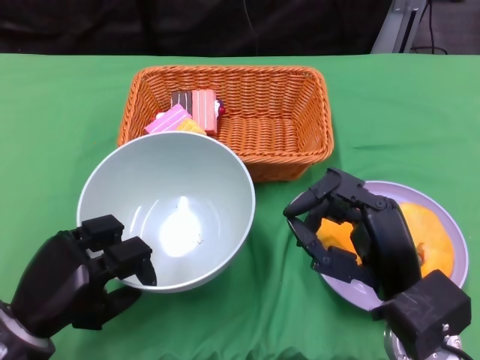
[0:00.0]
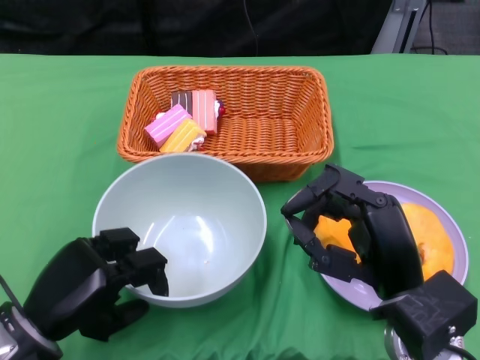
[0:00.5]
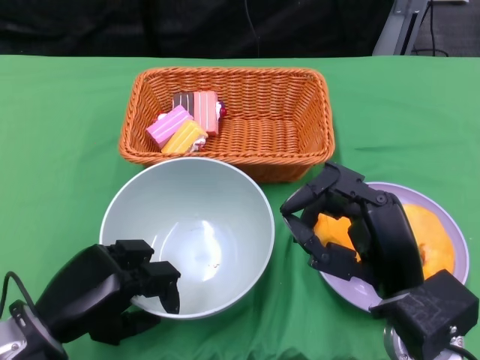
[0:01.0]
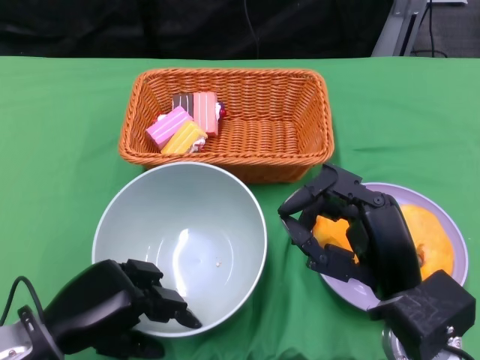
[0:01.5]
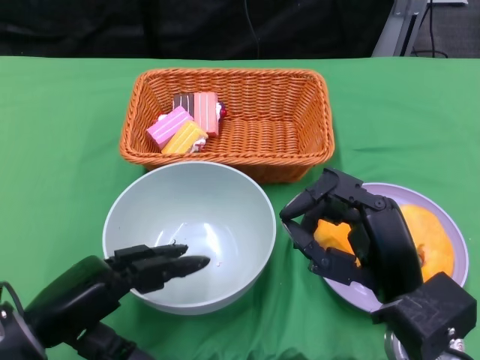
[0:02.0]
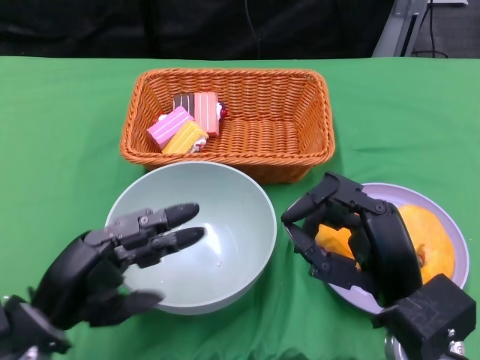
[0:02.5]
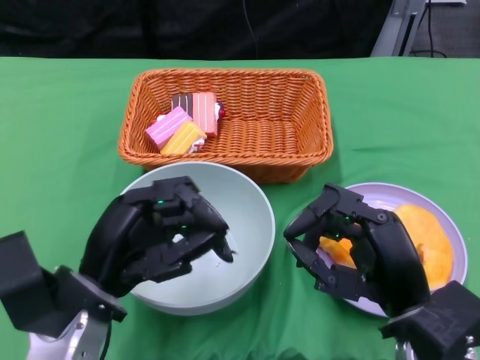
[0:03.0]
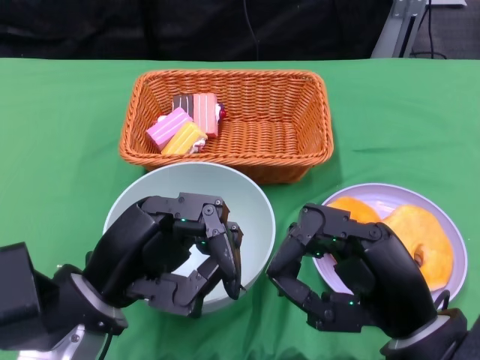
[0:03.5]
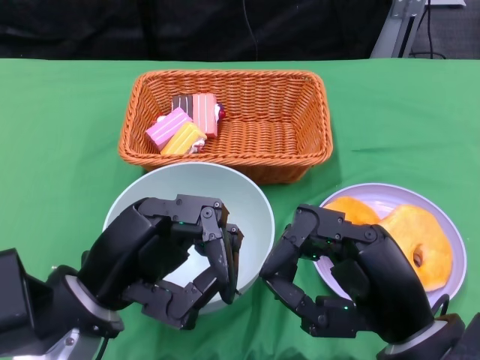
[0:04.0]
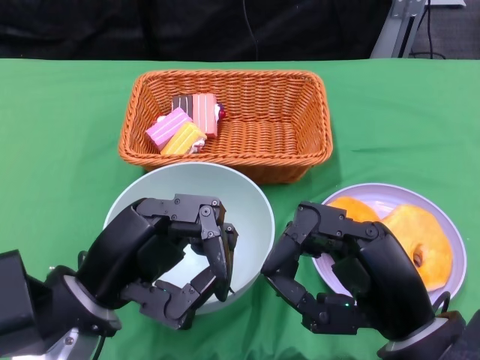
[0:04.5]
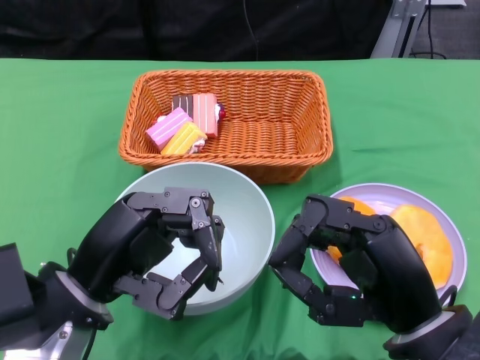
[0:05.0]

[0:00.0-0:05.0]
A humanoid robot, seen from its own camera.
0:02.5 to 0:05.0: The left hand is displaced upward by about 5 cm.

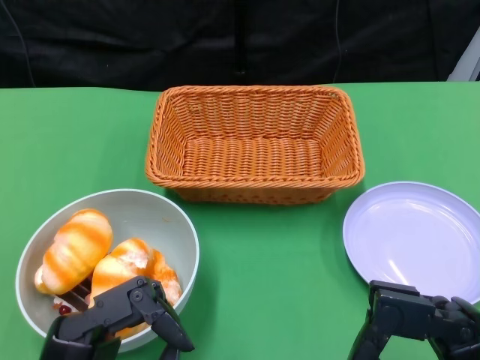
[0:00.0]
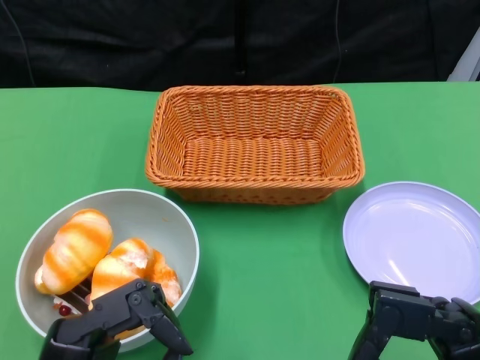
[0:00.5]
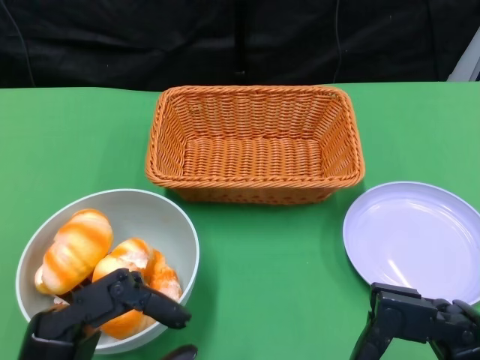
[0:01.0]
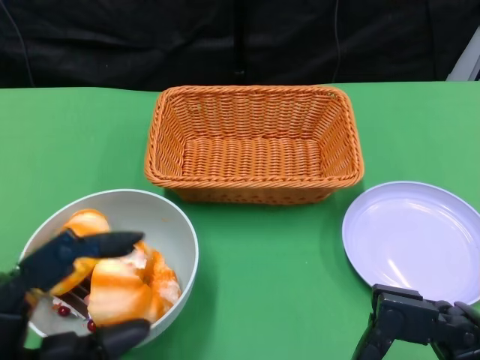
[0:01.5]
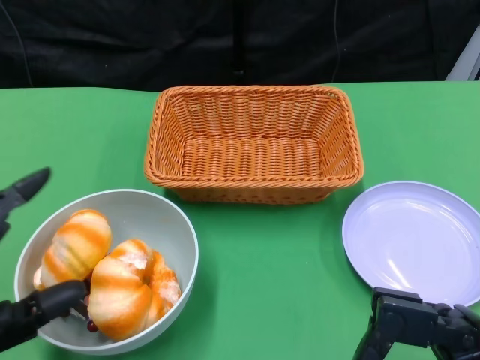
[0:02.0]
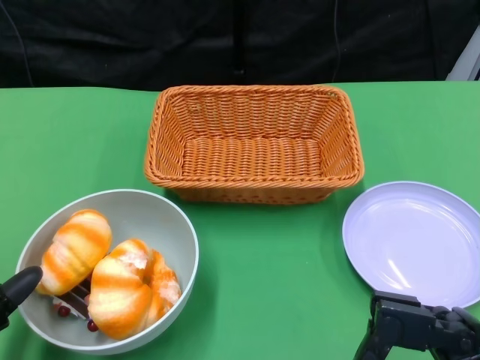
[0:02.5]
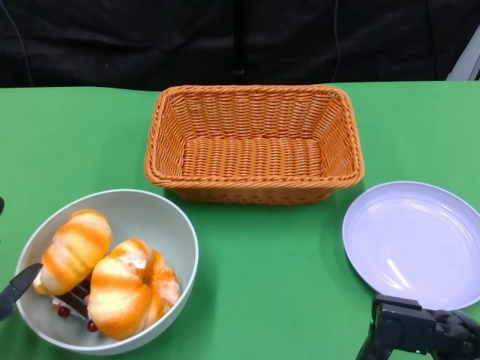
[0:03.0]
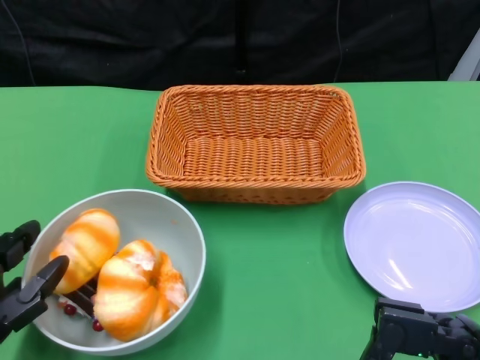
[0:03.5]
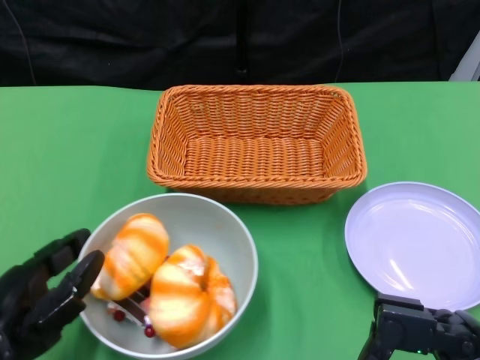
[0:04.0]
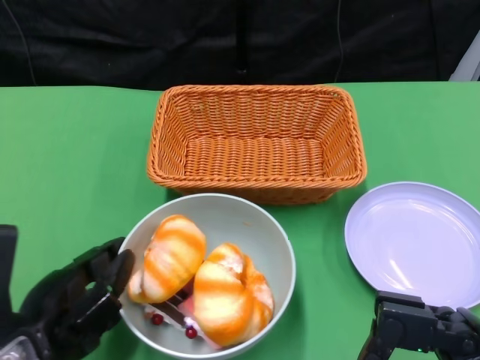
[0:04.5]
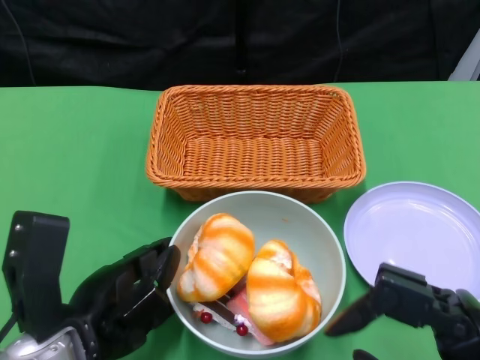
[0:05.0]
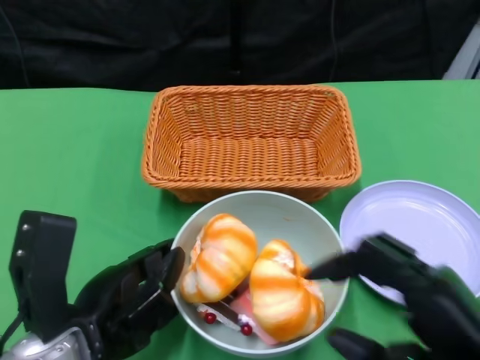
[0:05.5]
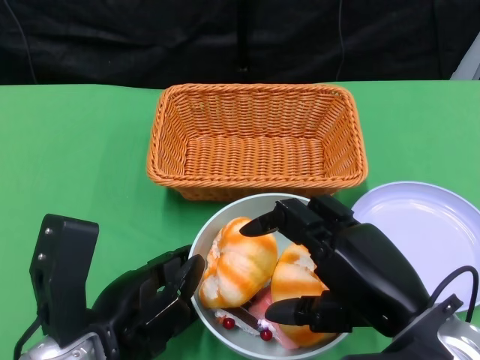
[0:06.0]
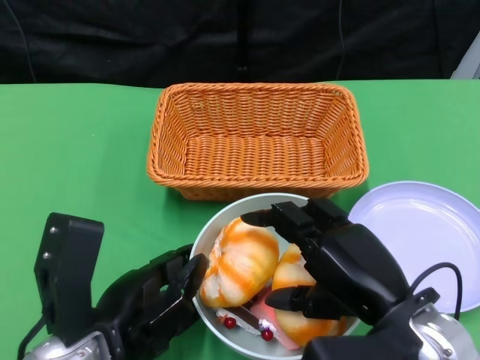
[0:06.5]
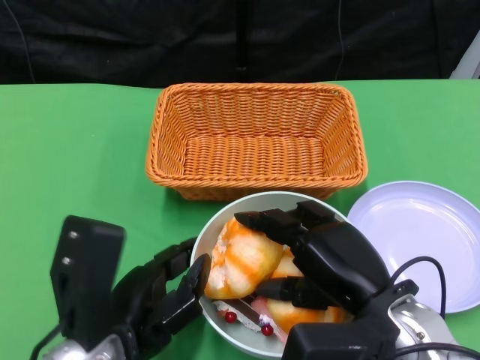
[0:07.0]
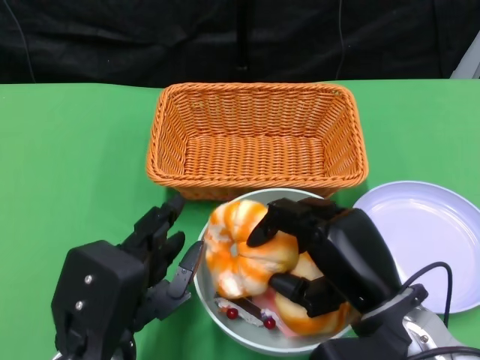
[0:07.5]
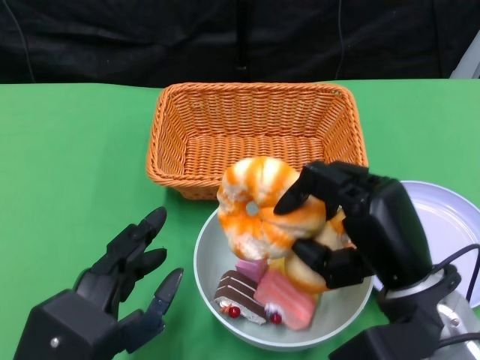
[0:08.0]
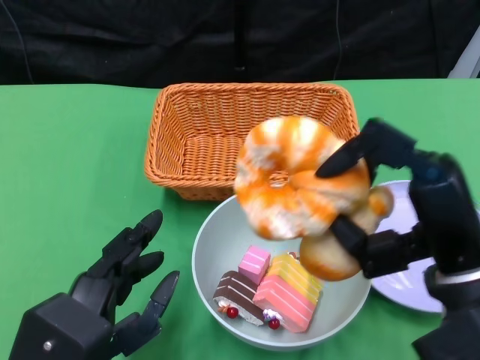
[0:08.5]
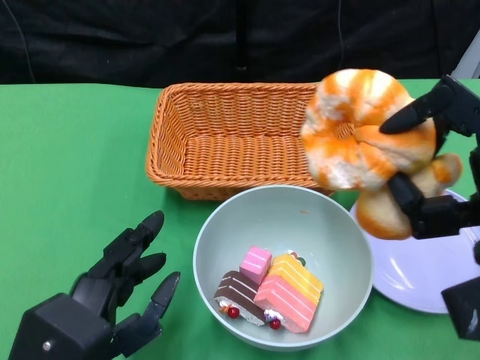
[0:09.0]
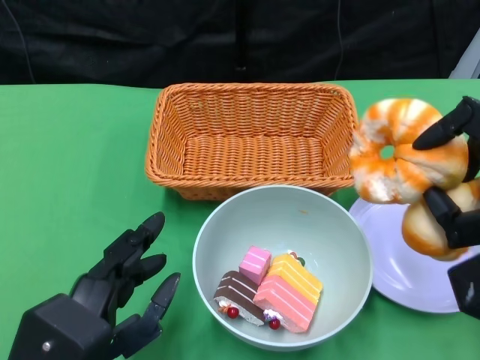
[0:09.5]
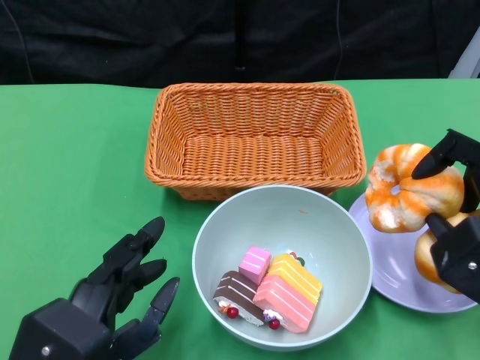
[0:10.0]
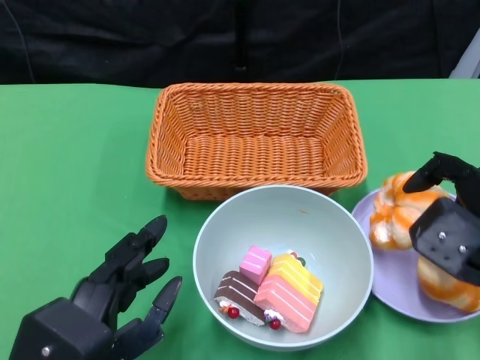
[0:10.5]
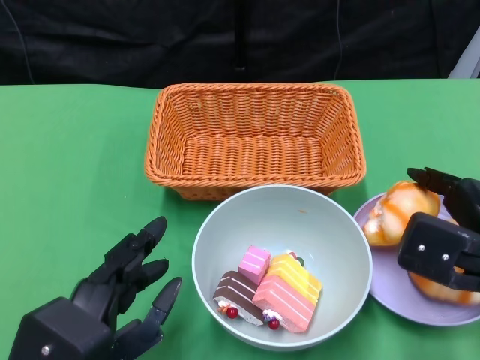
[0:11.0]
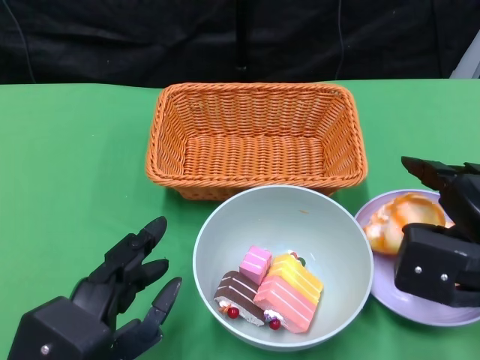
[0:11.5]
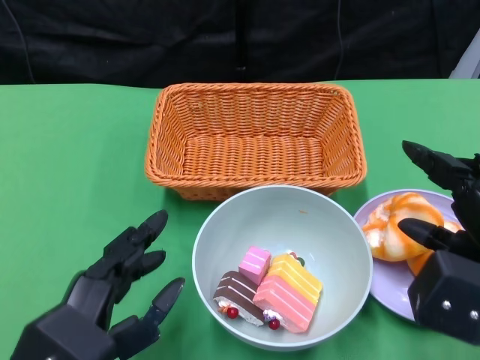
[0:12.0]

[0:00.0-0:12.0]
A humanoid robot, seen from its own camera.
Step, 0:00.0 to 0:05.0: Push the bowl to the center of the table using the left gripper.
Step, 0:06.0 to 0:11.5: Pick up the bread with the right gripper and place it on the plate.
0:02.0 to 0:04.0: The left hand travels forward by about 5 cm.
0:04.0 to 0:06.0: The right hand moves forward, roughly 5 cm; the left hand heads to the right, covering roughly 10 cm.
0:06.0 to 0:08.0: The right hand shifts by approximately 5 cm.
0:08.0 to 0:10.0: The right hand travels to the right by approximately 10 cm.

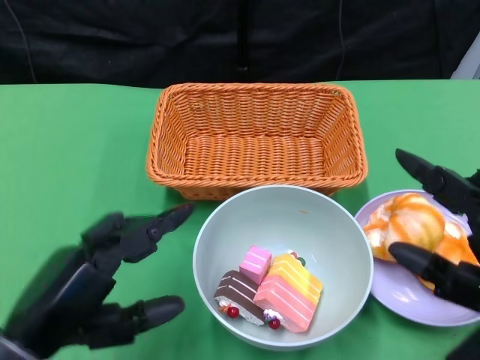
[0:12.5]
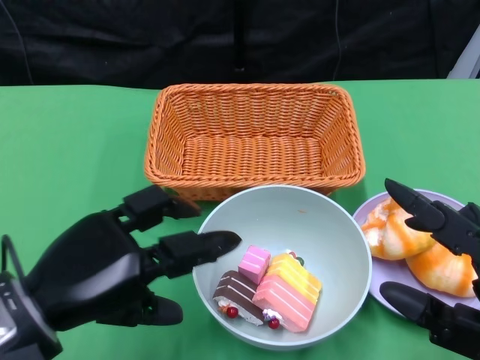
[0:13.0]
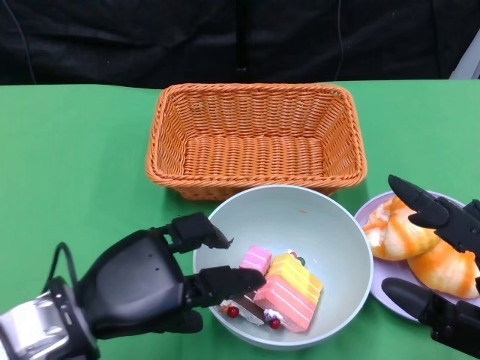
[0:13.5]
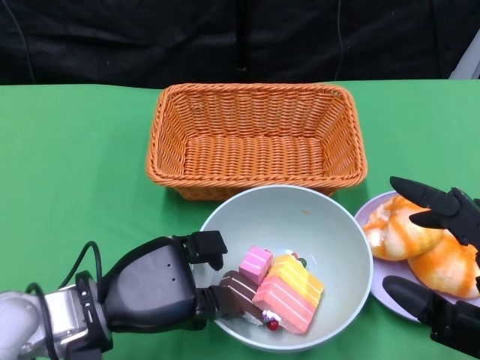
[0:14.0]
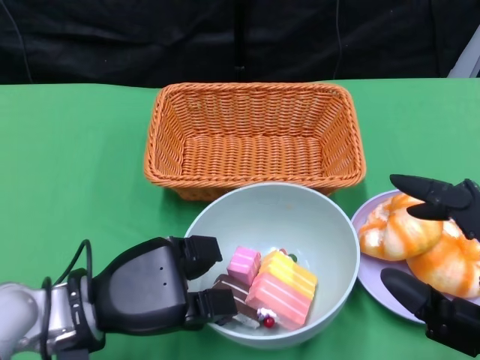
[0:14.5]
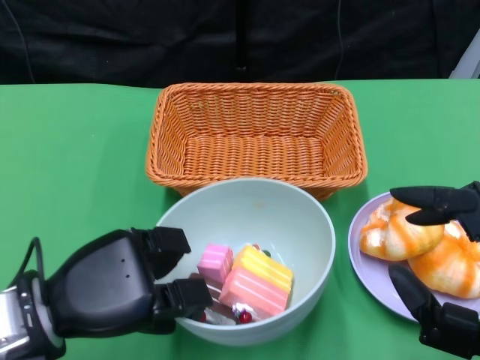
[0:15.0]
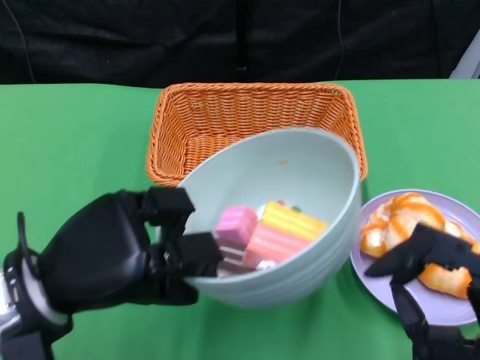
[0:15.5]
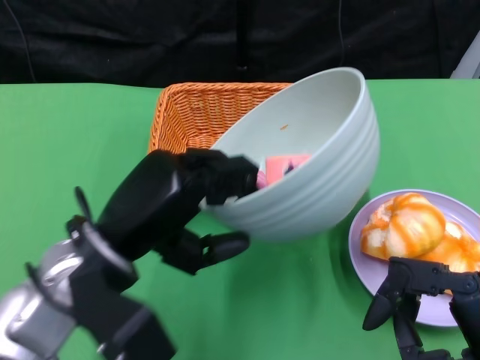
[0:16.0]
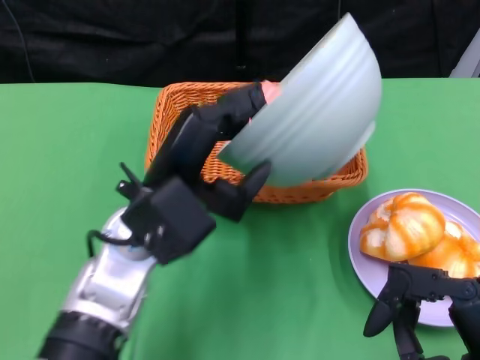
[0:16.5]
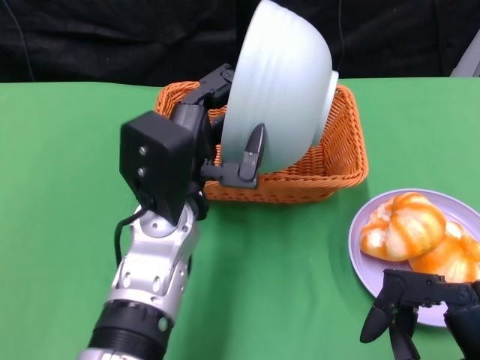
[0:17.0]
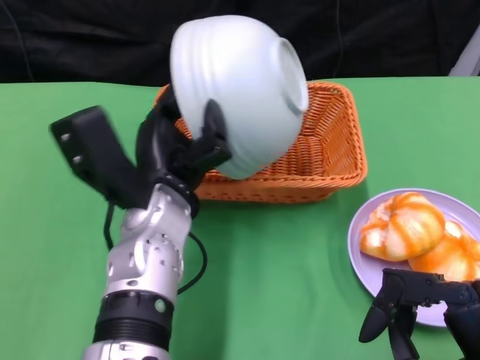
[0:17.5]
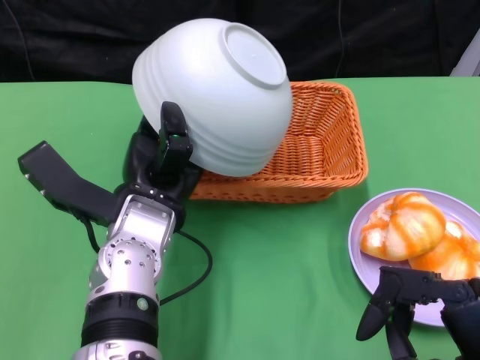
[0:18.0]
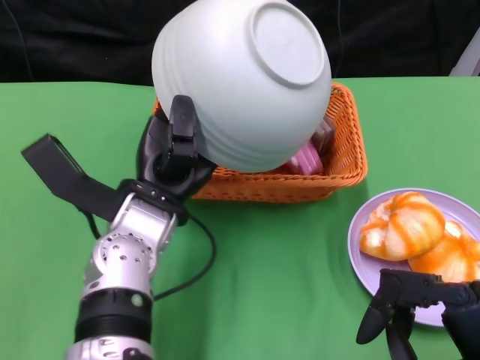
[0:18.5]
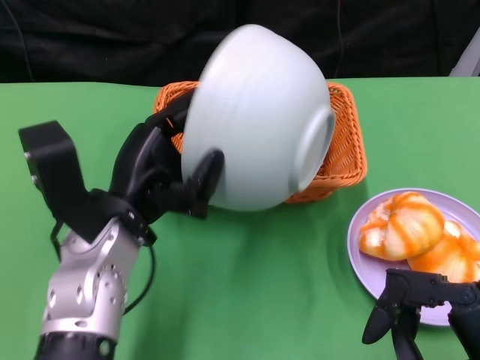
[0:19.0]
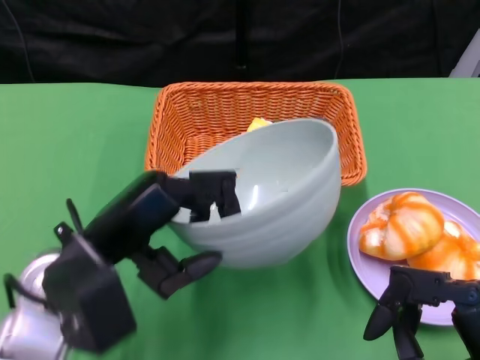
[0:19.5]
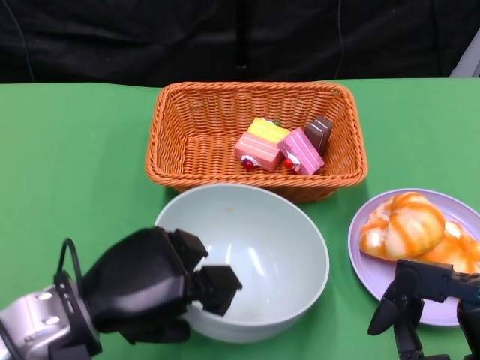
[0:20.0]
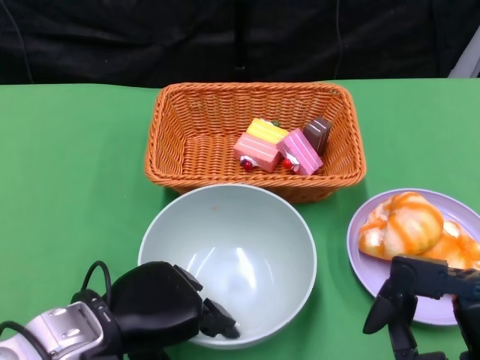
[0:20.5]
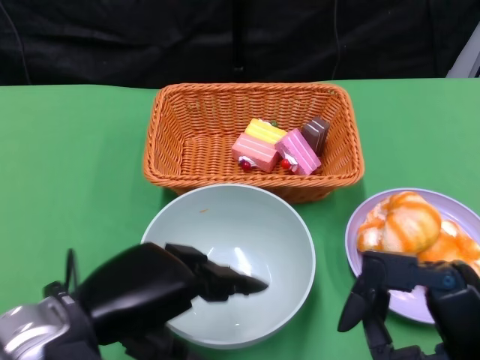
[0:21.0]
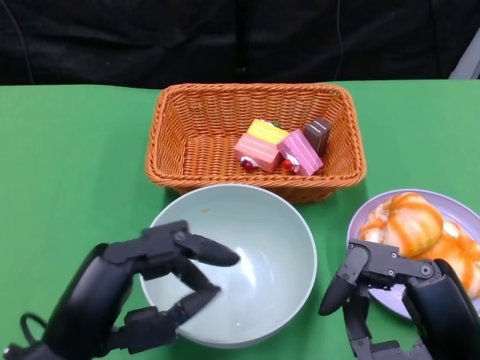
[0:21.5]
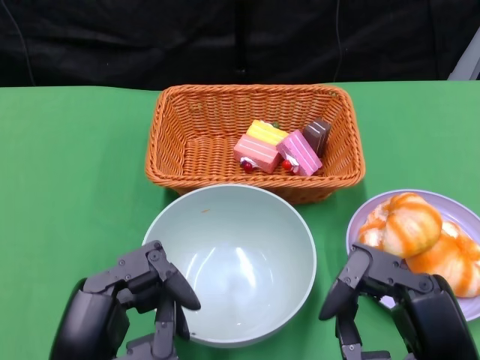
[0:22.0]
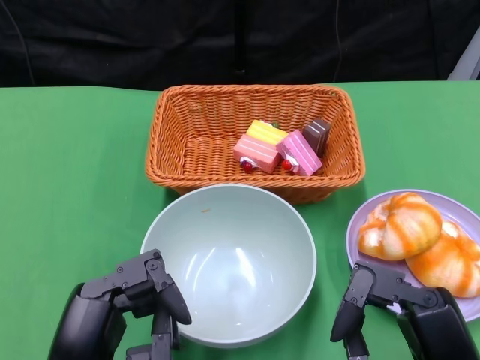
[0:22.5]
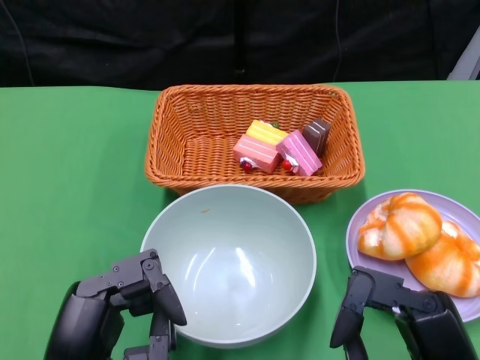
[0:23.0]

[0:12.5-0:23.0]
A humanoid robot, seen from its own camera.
Step, 0:12.5 to 0:14.0: Grasp the bowl with the left gripper.
Step, 0:14.5 to 0:18.5: Pour the cake into the basket with the left gripper.
Step, 0:19.0 to 0:21.0: Place the bowl on the table with the left gripper.
0:12.5 to 0:14.5: The left hand heads forward and downward, covering about 10 cm.
0:14.5 to 0:16.5: The left hand goes roughly 10 cm upward and to the right.
0:19.0 to 0:21.0: The left hand travels backward by about 10 cm.
0:21.0 to 0:23.0: The left hand moves backward, some 5 cm.
